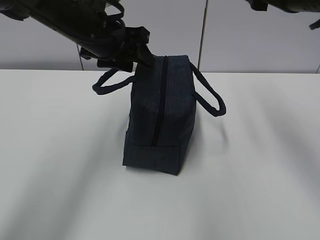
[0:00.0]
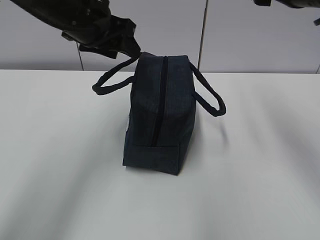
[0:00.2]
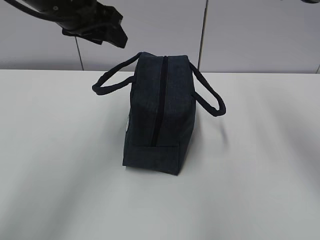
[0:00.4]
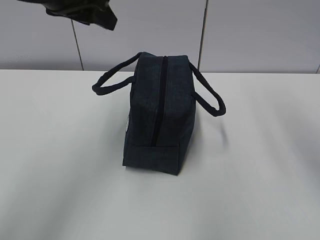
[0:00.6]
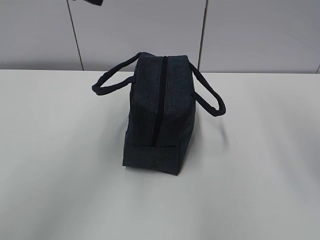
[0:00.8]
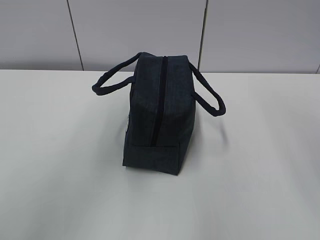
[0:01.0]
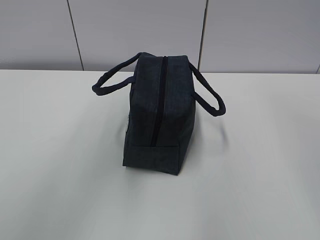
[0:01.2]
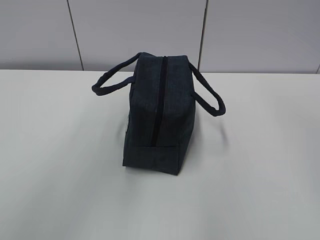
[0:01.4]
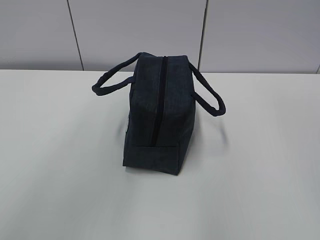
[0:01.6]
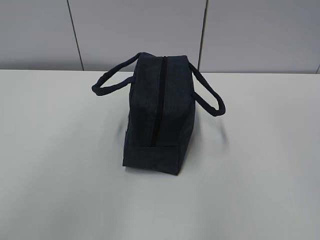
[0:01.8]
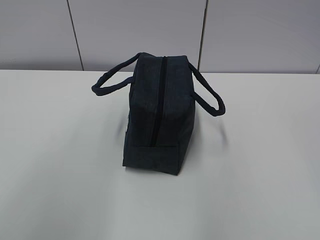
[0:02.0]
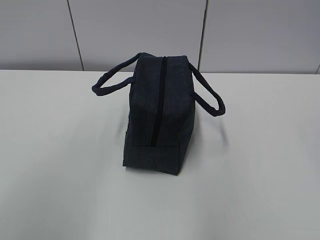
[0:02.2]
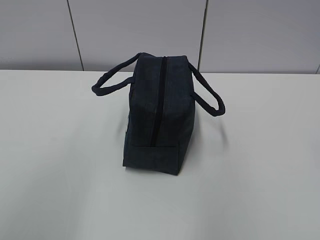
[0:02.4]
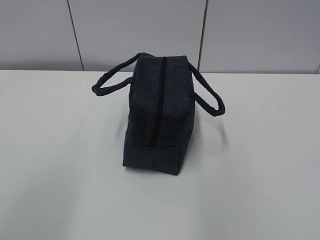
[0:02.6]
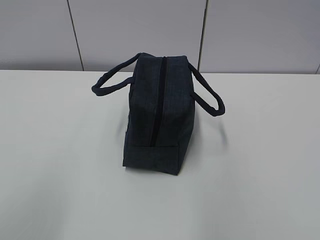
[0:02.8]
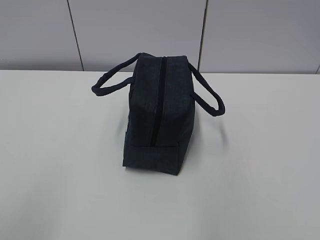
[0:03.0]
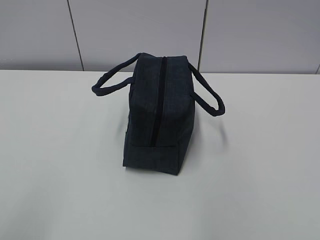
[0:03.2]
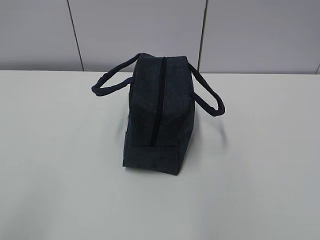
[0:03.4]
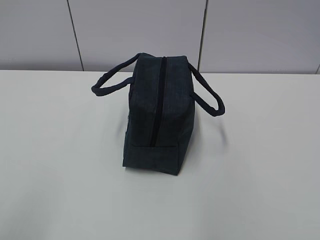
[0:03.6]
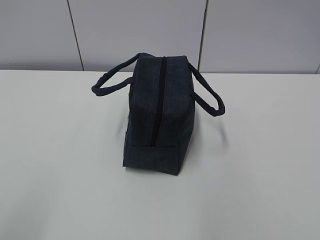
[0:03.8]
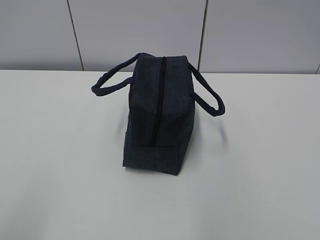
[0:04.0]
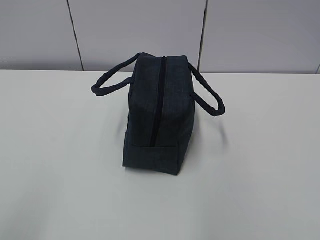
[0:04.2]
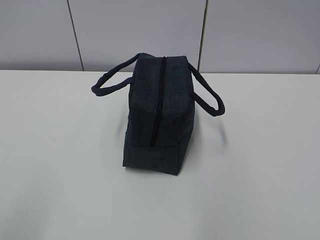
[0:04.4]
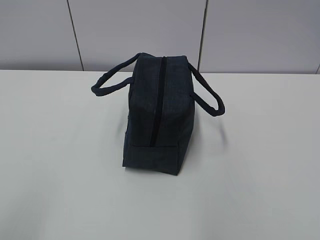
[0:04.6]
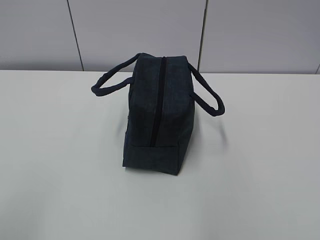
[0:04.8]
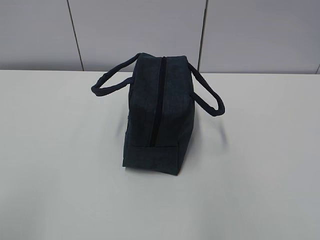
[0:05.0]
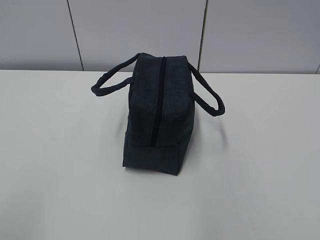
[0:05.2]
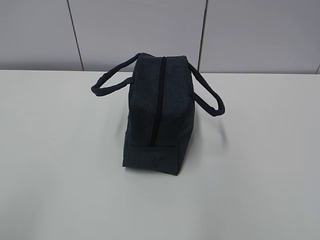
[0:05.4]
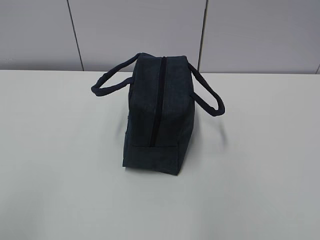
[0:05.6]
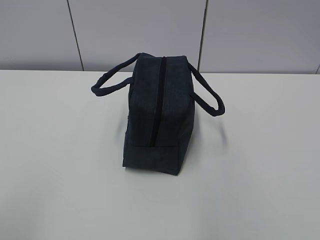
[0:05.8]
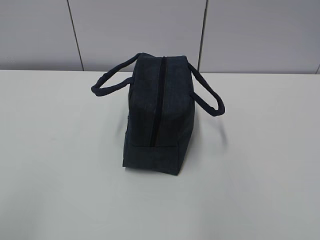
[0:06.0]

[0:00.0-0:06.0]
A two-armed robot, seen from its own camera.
0:00.0 to 0:01.6: The left gripper is displaced upward, backward and to the left by roughly 30 cm. The right gripper is displaced backward and upward by roughly 25 cm.
0:01.6 to 0:03.0: The left gripper heads backward, downward and to the left, covering approximately 30 cm.

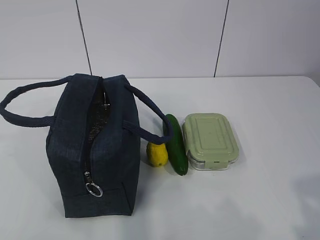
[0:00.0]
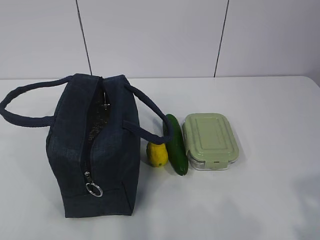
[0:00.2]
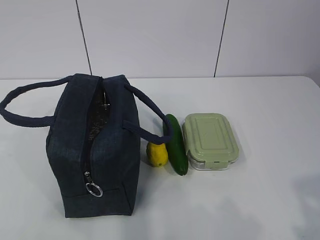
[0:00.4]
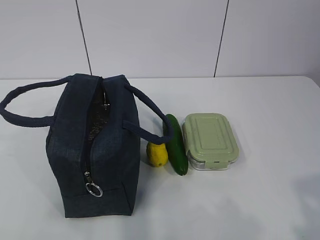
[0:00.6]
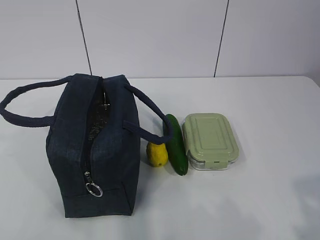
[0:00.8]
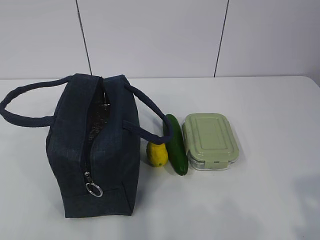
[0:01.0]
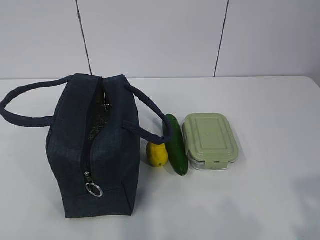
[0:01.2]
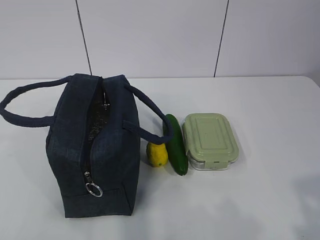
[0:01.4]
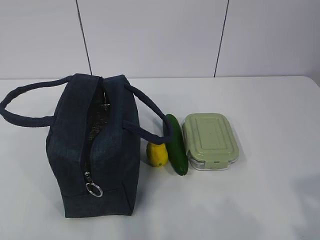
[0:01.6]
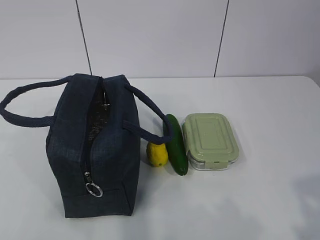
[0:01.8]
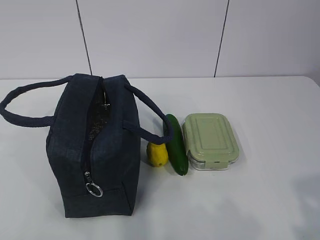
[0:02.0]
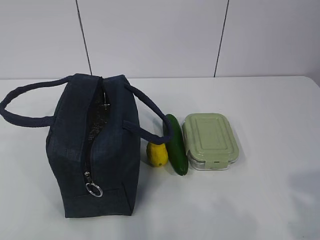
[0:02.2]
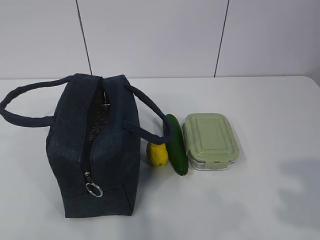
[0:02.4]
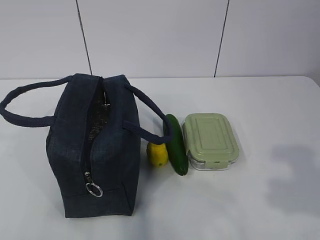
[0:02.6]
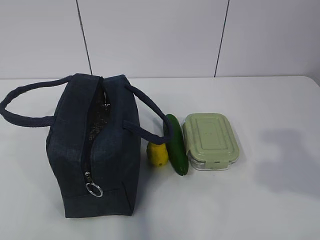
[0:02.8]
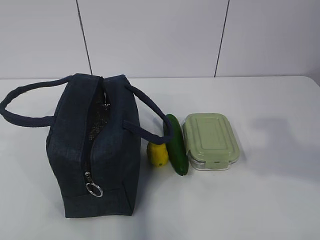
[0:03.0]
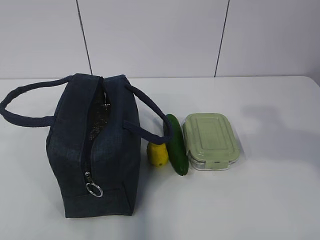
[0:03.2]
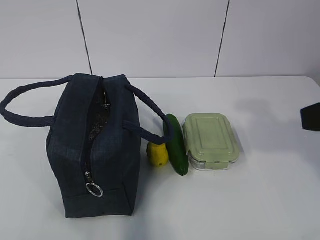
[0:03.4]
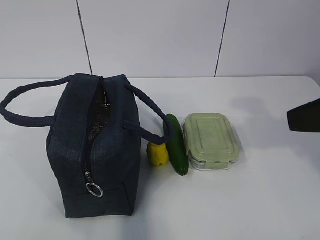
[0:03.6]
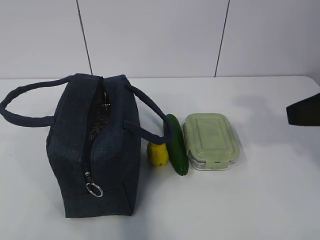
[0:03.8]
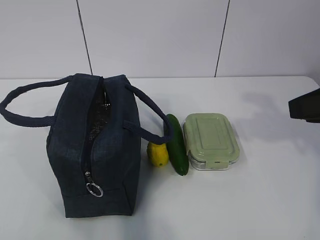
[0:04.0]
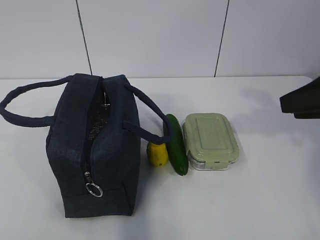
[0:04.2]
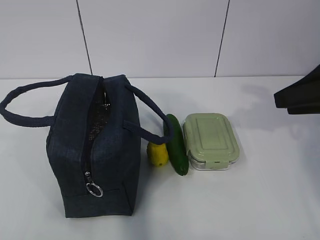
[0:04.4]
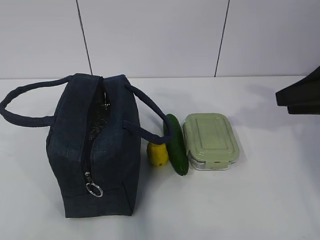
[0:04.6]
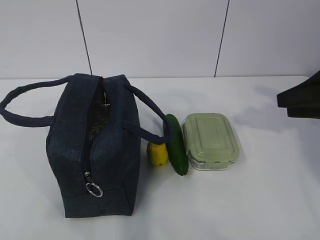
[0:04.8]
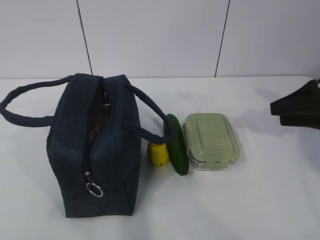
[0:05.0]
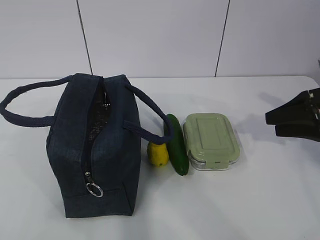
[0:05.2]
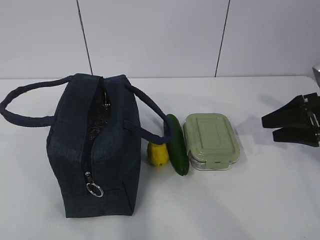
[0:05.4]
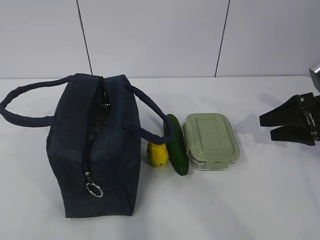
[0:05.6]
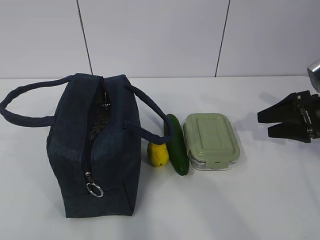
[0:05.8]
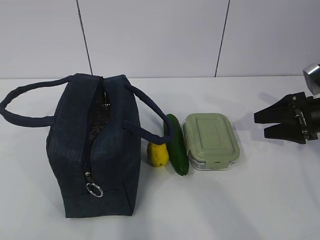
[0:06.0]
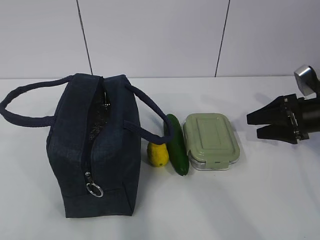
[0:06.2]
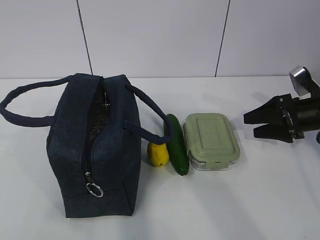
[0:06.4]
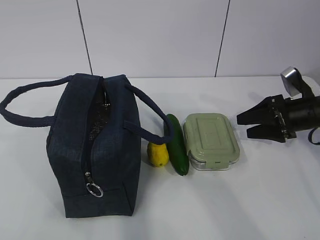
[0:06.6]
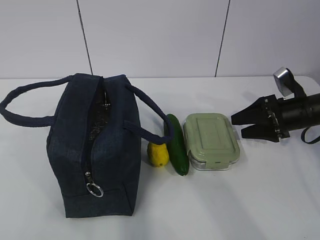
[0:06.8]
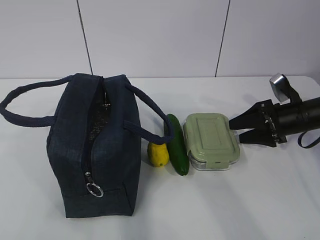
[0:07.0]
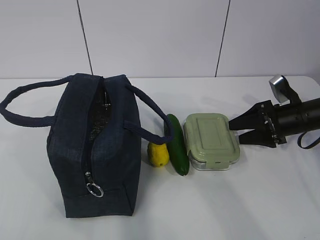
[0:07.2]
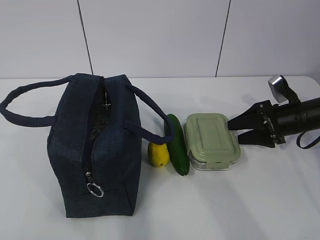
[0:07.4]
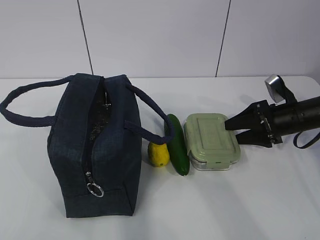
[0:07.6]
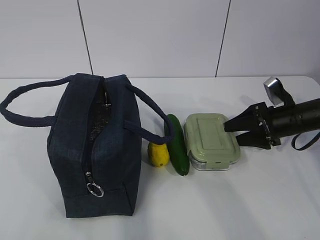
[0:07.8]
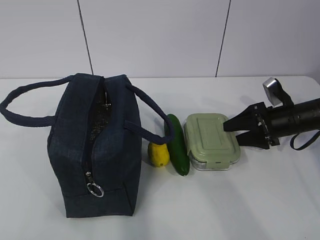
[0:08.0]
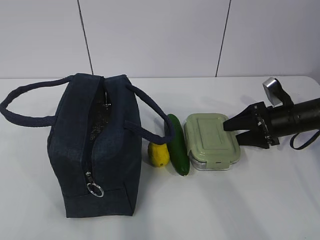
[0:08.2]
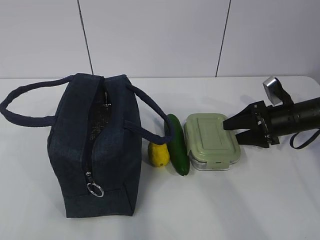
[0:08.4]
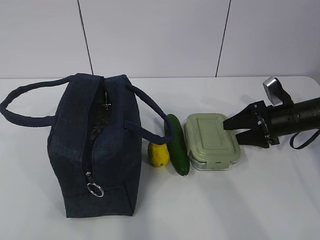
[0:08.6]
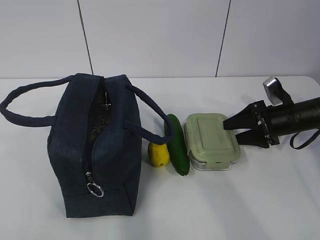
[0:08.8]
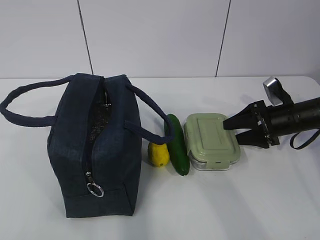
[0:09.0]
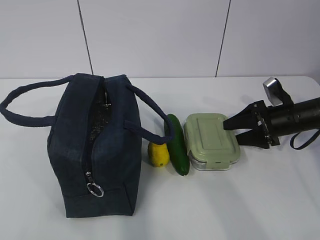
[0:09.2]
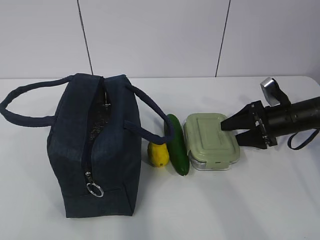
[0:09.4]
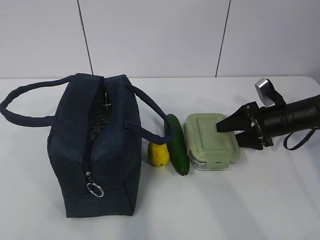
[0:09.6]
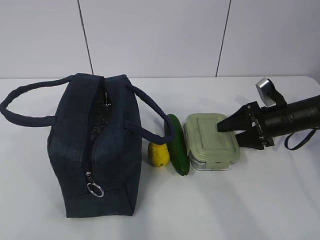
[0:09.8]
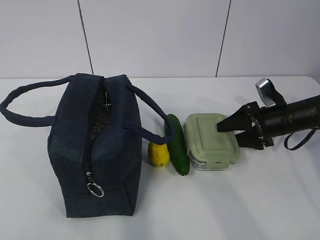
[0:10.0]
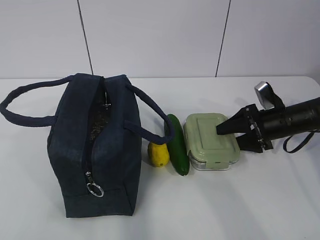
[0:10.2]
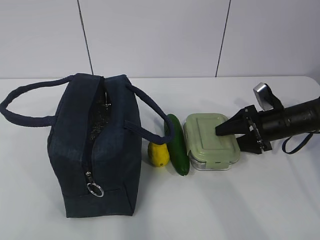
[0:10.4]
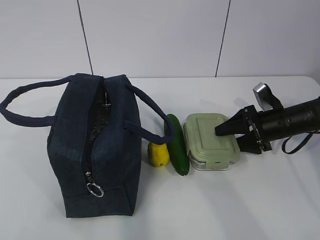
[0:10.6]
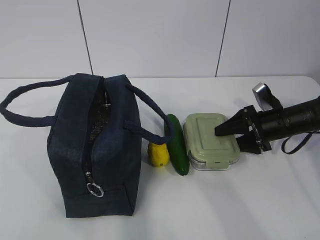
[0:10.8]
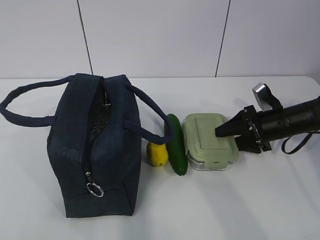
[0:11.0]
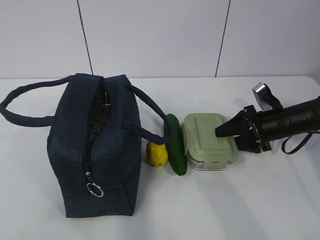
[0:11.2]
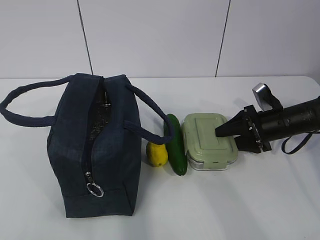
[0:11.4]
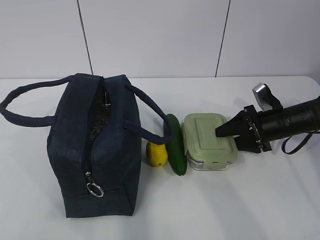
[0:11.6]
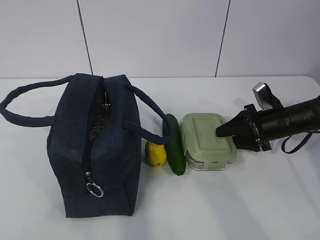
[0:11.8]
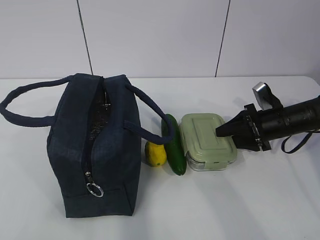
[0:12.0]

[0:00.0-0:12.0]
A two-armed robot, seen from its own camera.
0:01.6 to 0:03.0: The right gripper goes roughly 10 cm forward and upward.
0:03.0 to 0:04.4: The right gripper travels forward by roughly 15 cm.
0:04.4 to 0:06.0: The right gripper goes roughly 15 cm downward and forward.
0:06.0 to 0:07.6: The right gripper changes place by approximately 5 cm.
0:07.6 to 0:10.4: The grippers stay close to where they were, moving slightly.
0:10.4 to 0:12.0: Both grippers stay put.

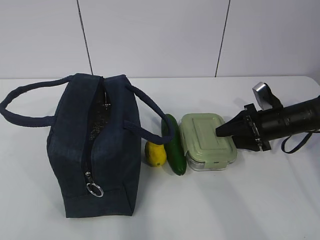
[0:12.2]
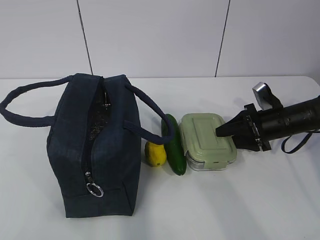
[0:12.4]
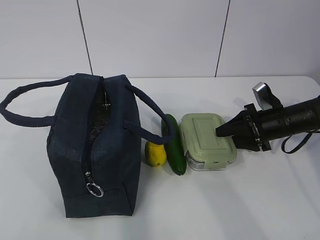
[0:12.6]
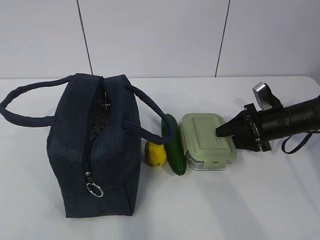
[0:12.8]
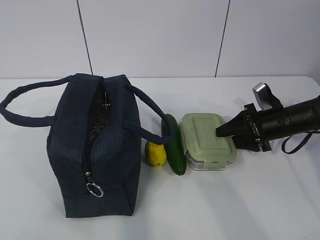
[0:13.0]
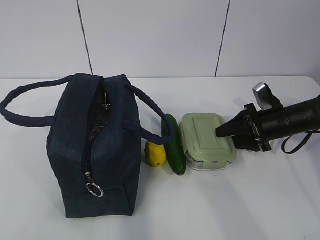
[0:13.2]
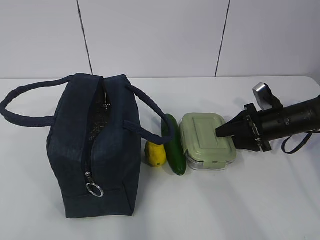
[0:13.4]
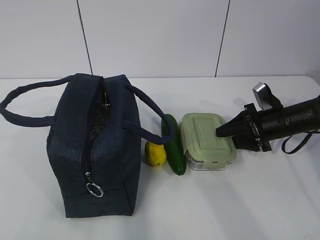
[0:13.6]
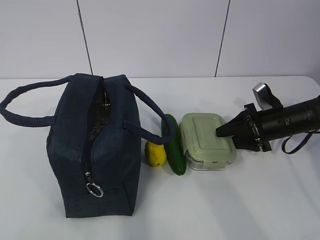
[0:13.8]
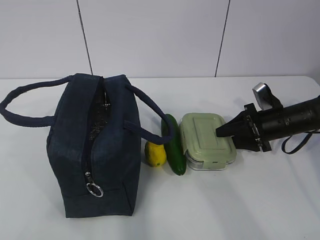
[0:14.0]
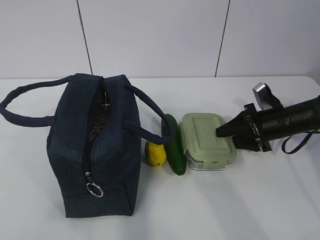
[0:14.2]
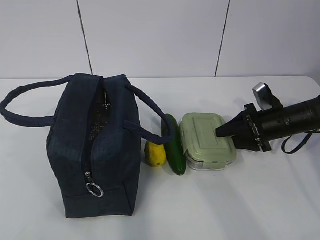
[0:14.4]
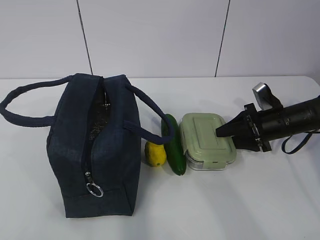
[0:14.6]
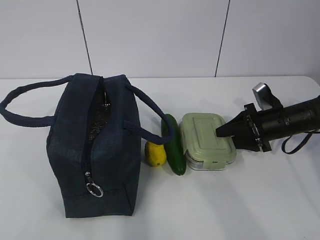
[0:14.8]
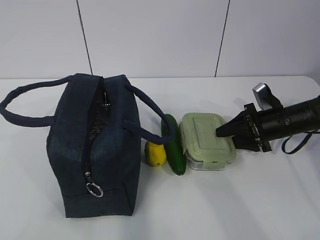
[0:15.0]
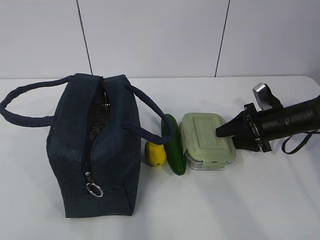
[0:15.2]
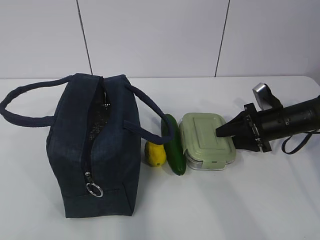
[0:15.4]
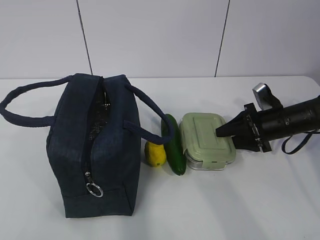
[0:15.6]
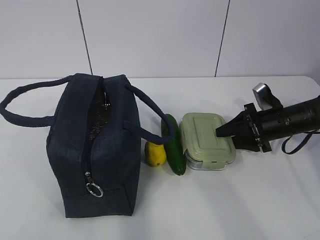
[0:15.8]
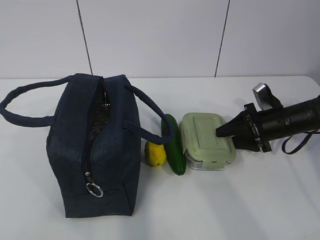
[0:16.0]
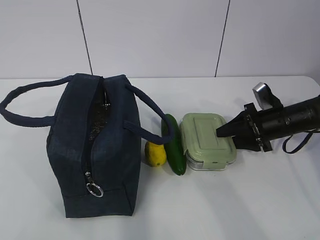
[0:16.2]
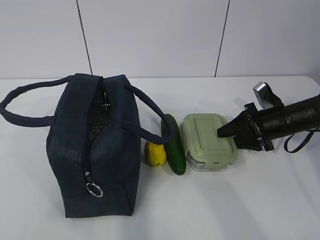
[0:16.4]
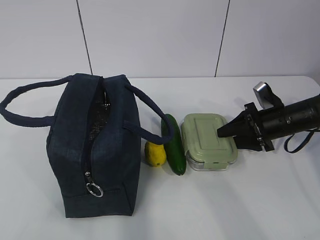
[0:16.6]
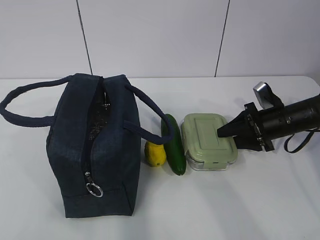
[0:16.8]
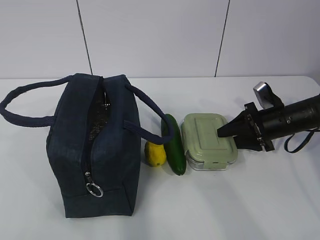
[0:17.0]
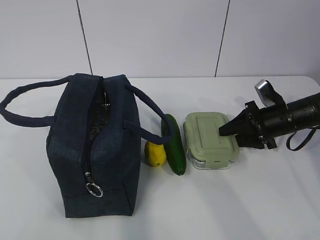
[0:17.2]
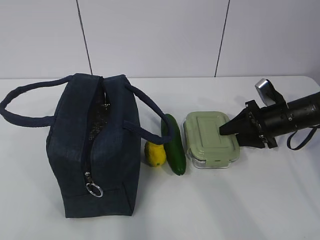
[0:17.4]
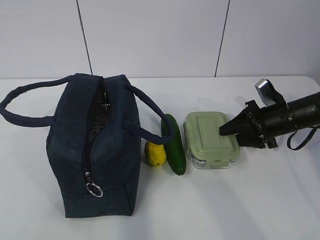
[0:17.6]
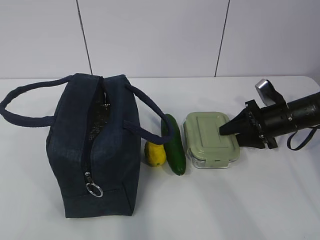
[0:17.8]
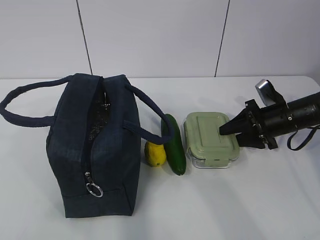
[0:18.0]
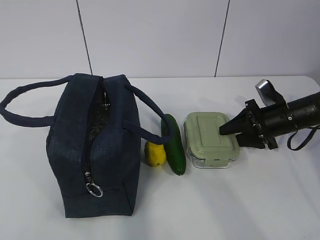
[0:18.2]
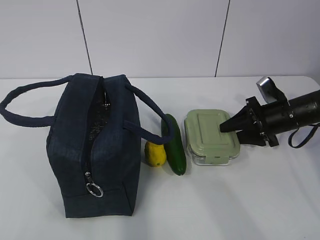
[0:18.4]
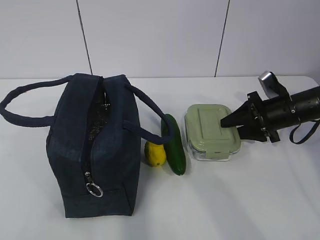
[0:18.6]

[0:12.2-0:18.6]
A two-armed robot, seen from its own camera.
0:12.2 to 0:17.0: Neither gripper changes place.
0:17.0 to 0:18.6: There are only small adjustments of the grippers.
